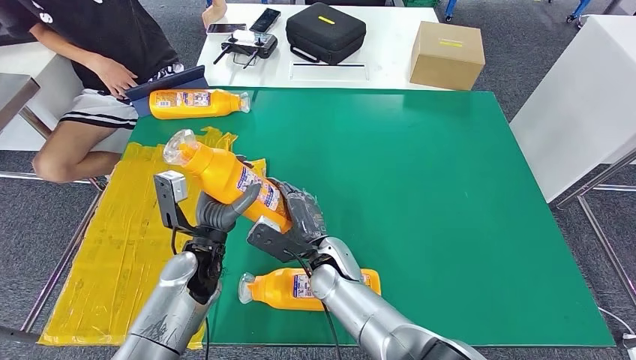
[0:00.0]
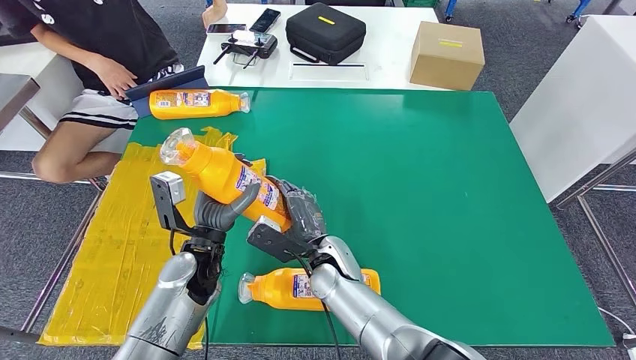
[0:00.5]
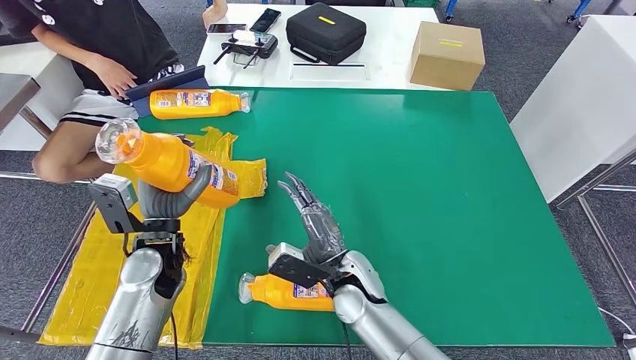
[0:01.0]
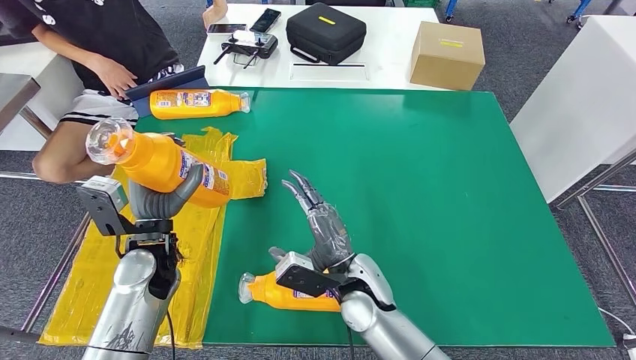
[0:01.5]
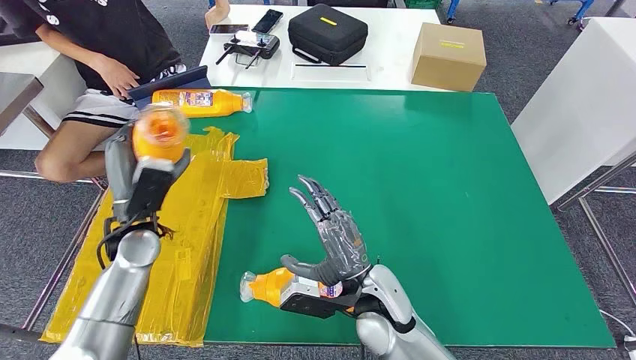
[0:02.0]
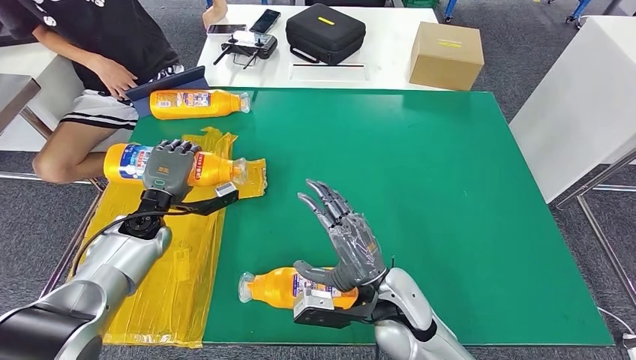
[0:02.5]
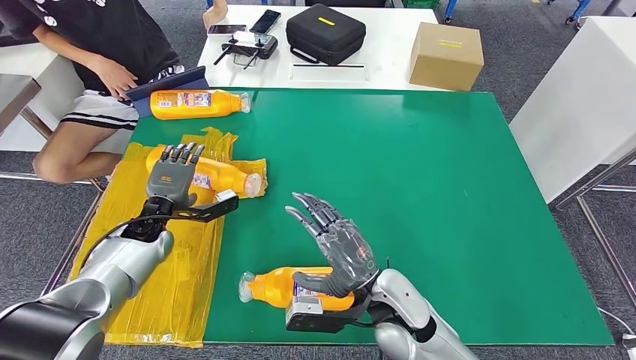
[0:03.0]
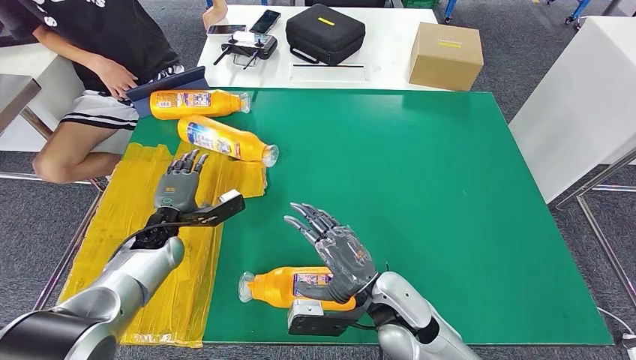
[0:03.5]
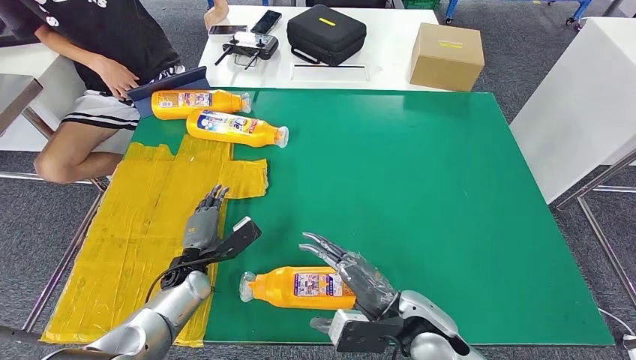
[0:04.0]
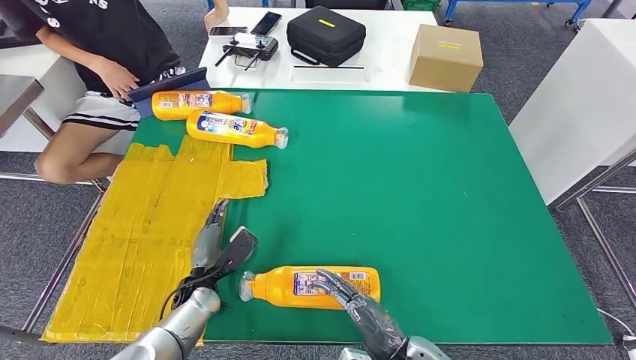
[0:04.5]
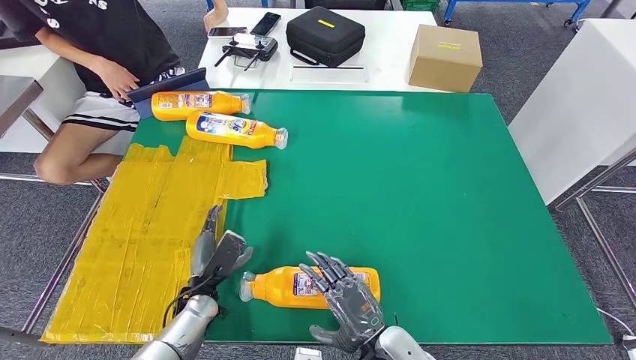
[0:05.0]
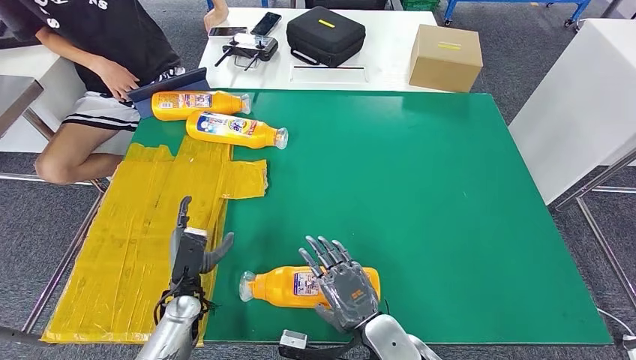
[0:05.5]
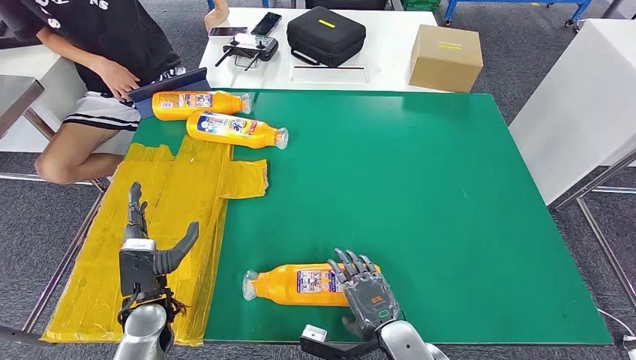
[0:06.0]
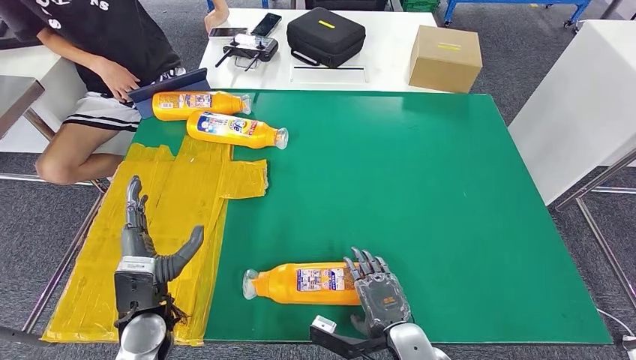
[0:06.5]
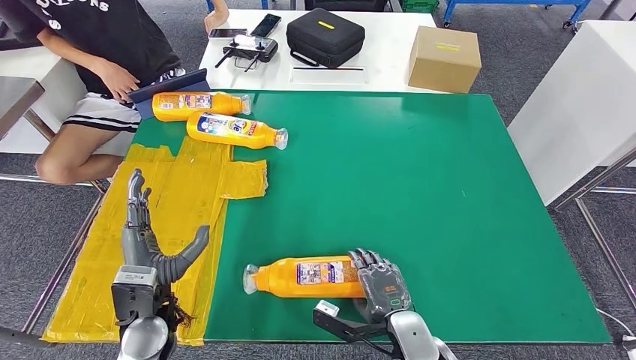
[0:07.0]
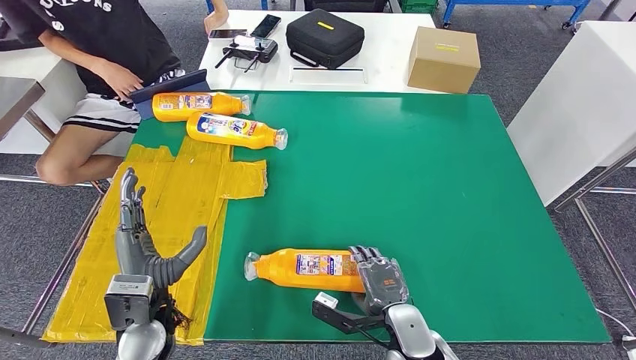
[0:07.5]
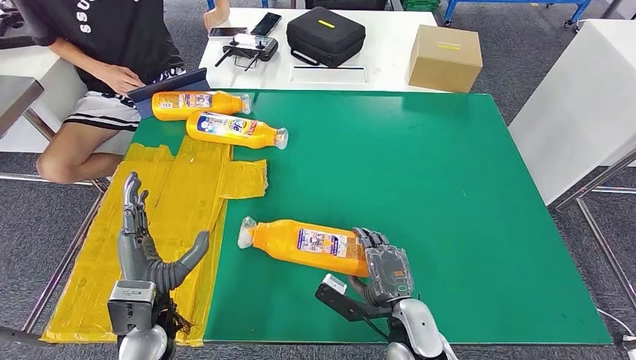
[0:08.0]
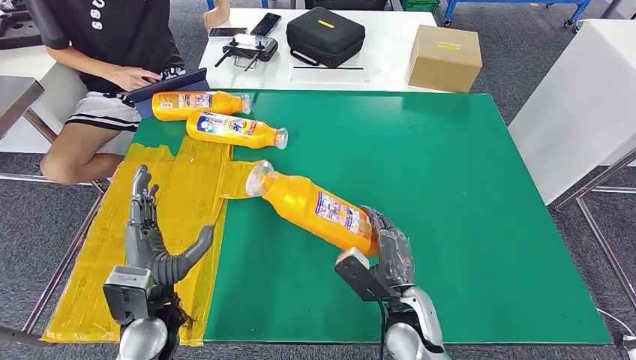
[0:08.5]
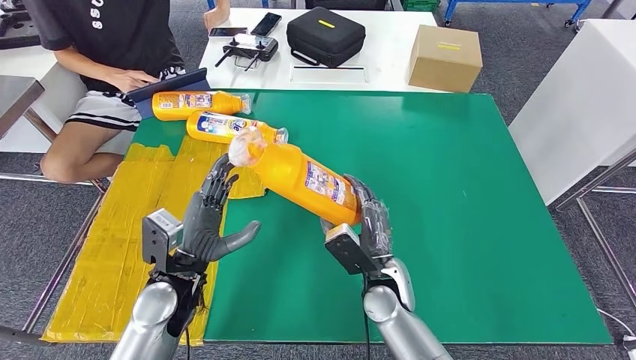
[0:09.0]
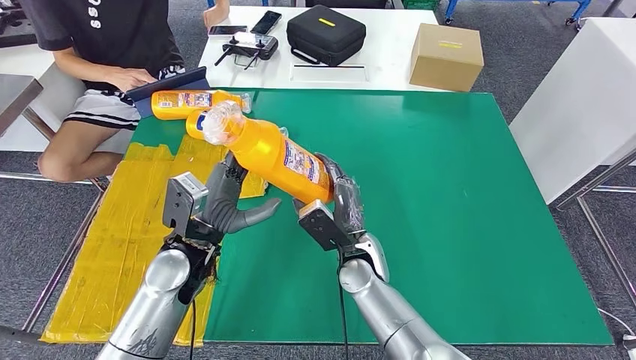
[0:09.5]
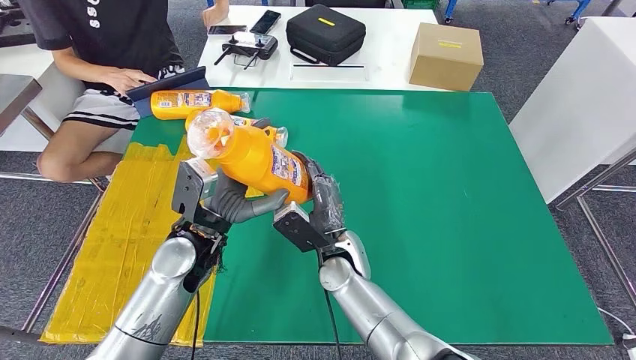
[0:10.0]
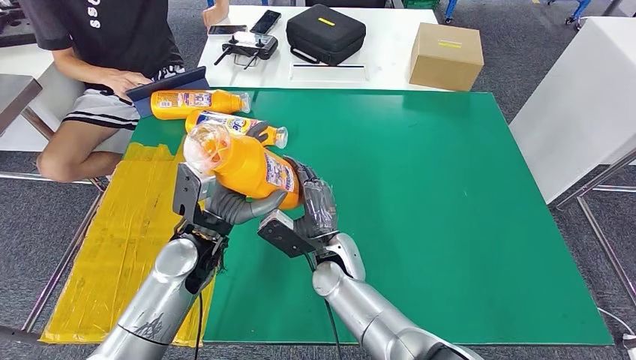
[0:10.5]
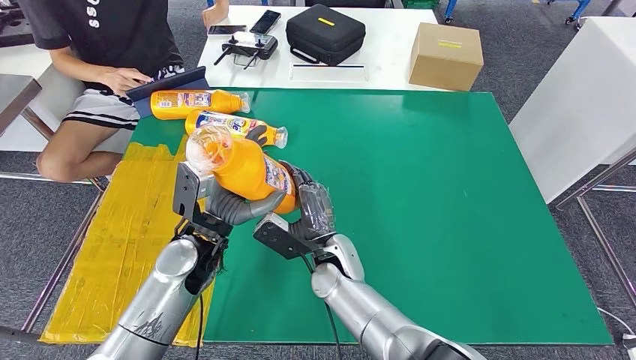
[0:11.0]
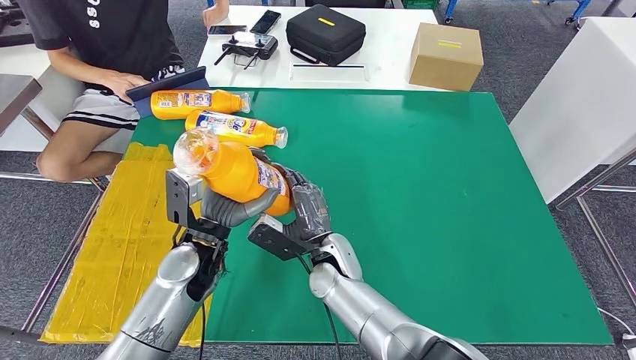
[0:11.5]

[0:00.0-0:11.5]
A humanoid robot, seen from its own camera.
Step, 0:00.0 to 0:04.0: Flip the fast-moving consumer goods bottle to the front side.
Step, 0:04.5 to 0:10.5: Pick up the fast-moving consumer goods bottle from the table.
0:02.0 to 0:04.0: The left hand shifts about 15 cm downward, while the right hand travels to the right by approximately 5 cm.
0:04.0 to 0:06.0: The left hand shifts roughly 10 cm backward. The right hand is displaced downward by roughly 5 cm.
0:06.0 to 0:07.5: The left hand is displaced upward by about 5 cm.
0:09.5 to 0:11.5: The right hand shifts some 5 cm to the left.

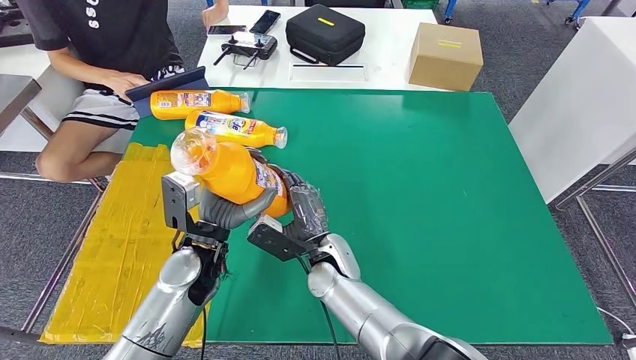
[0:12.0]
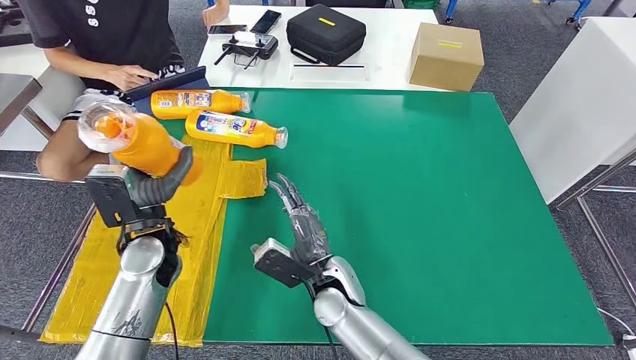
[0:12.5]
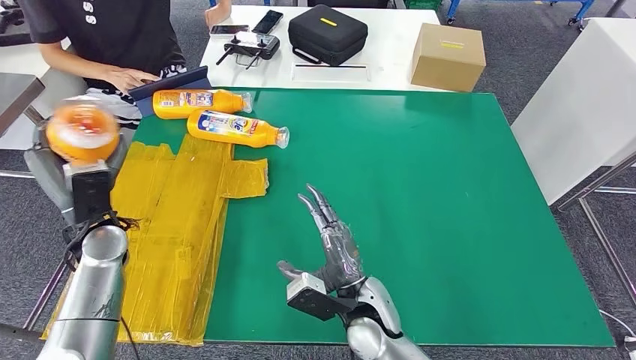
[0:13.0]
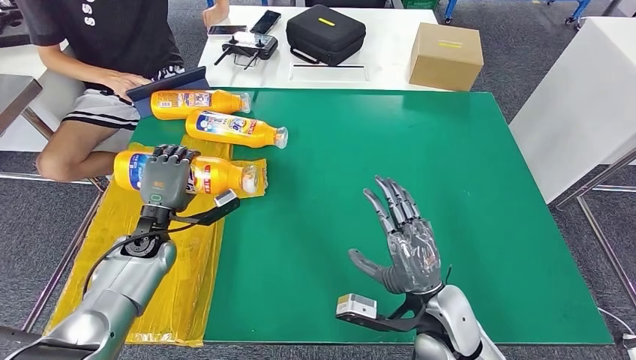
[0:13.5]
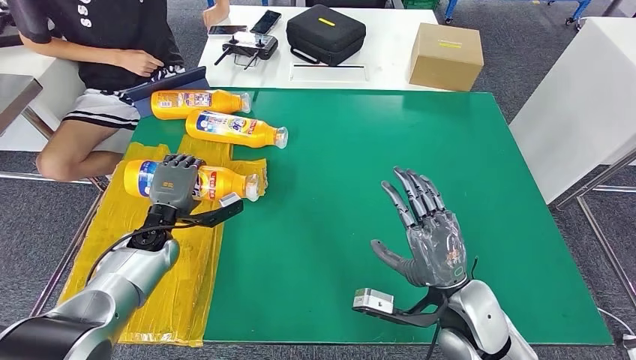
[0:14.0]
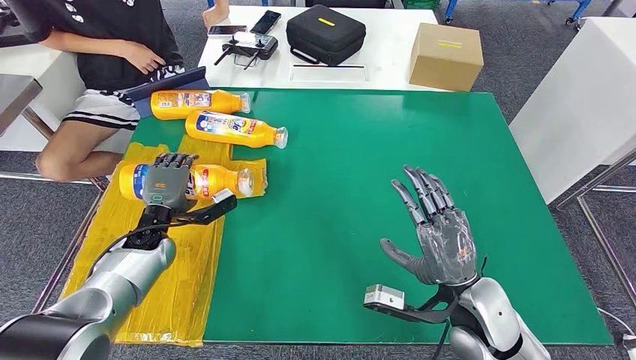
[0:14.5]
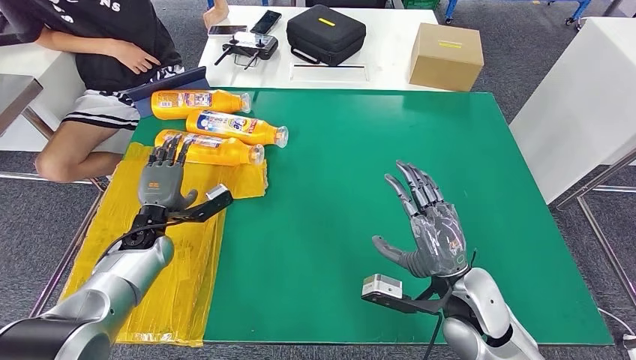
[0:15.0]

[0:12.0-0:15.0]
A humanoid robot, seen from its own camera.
Step, 0:12.0 to 0:15.0: Flip the fast-moving consumer goods bottle to the front side.
0:12.0 to 0:13.5: The right hand goes some 20 cm to the right and backward; the left hand goes some 15 cm to the left and forward.
0:13.5 to 0:15.0: The right hand ends up approximately 5 cm from where it was.
